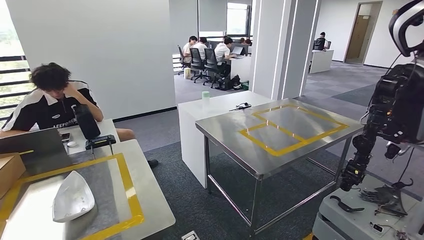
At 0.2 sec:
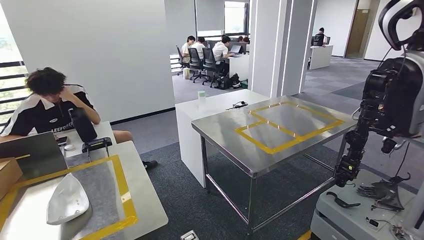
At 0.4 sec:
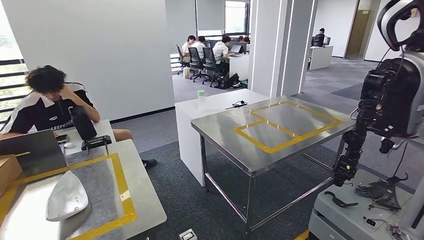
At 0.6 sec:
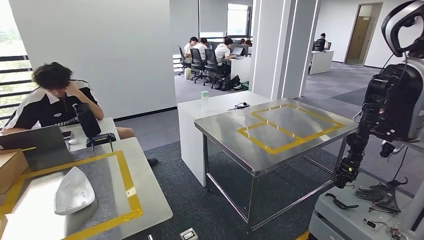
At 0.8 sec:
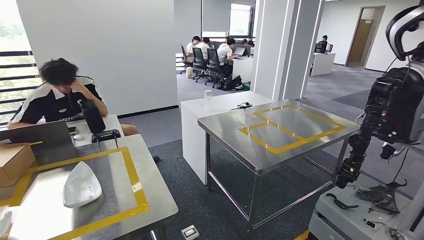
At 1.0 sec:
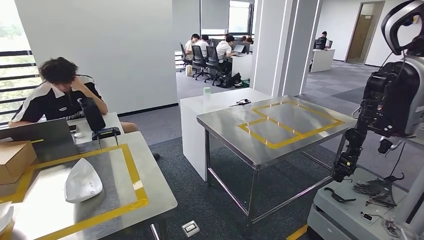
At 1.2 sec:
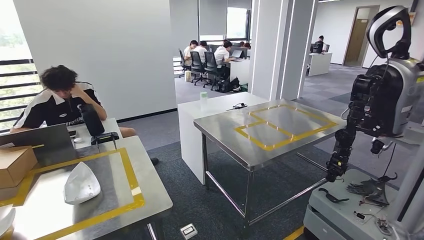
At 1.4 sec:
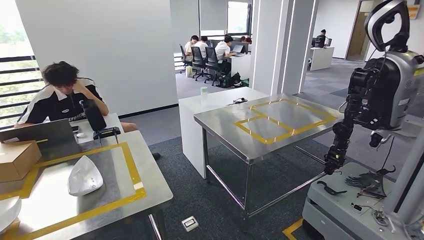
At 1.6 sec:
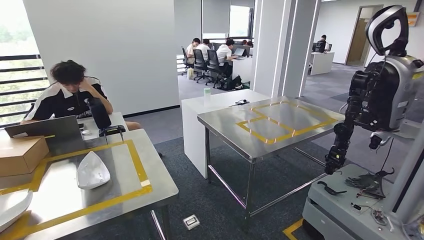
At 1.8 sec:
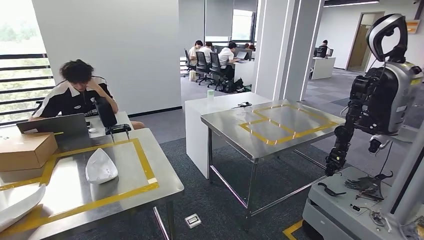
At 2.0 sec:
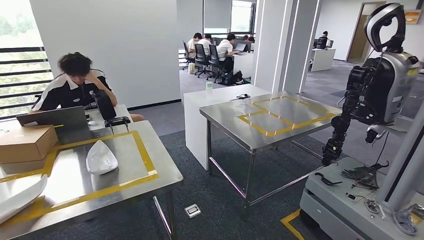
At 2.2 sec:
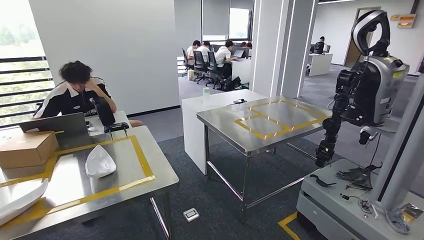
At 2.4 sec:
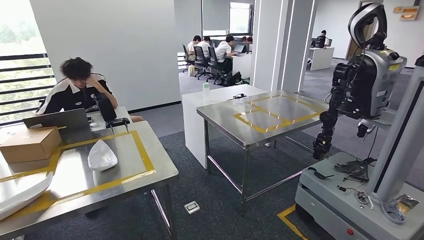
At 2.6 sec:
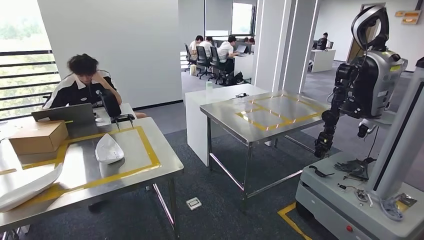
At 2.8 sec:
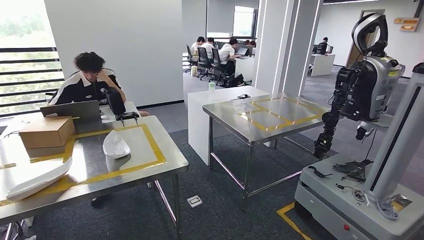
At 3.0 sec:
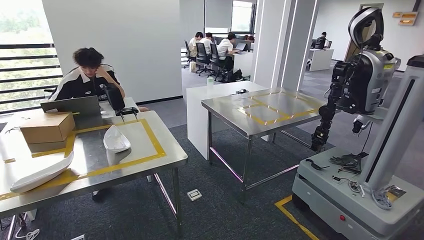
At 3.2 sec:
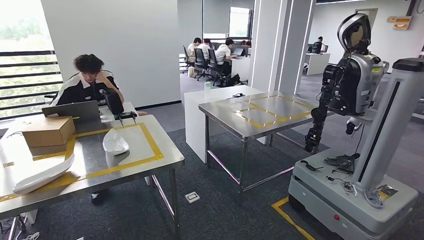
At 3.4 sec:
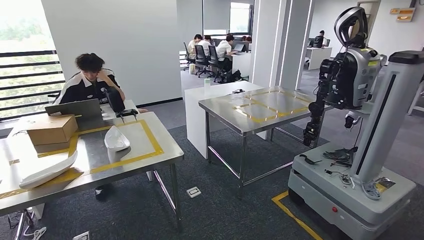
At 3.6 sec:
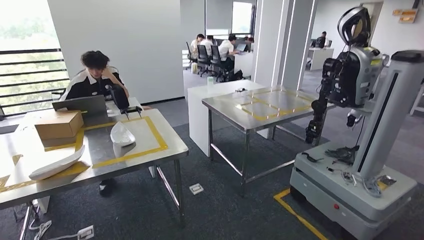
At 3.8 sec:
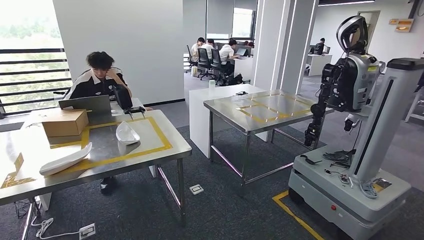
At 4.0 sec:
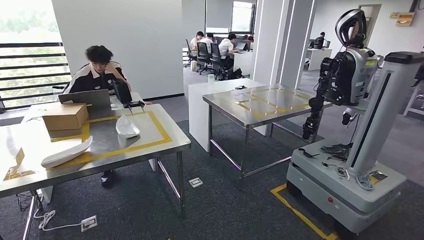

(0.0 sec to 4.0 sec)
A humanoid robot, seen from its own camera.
Step, 0.0 sec - 2.8 sec: Insert the small component into the corresponding slot on the workbench.
Step, 3.4 sec - 3.8 sec: Move to the initial position of the workbench.
